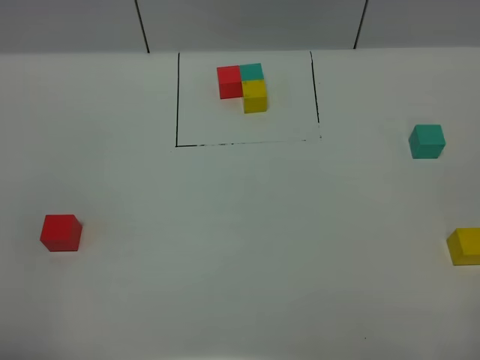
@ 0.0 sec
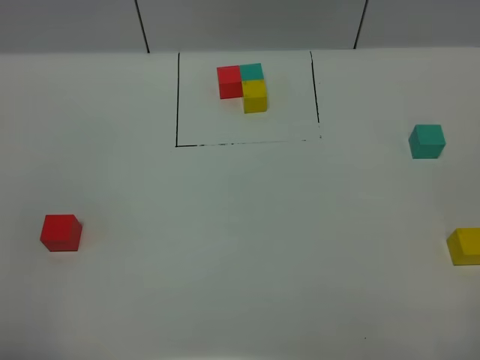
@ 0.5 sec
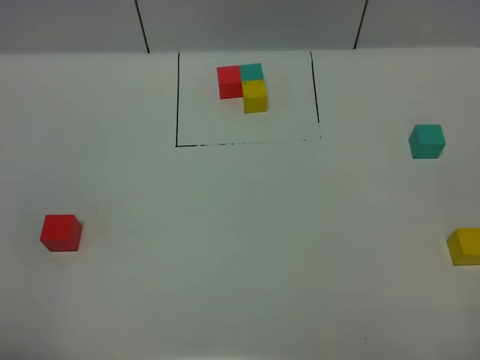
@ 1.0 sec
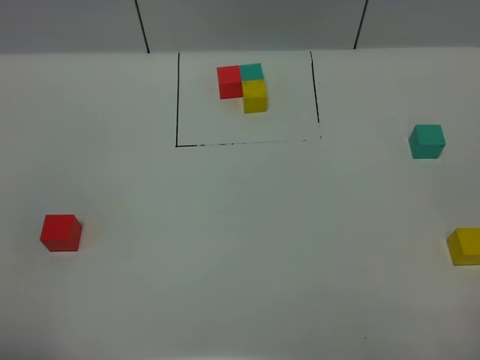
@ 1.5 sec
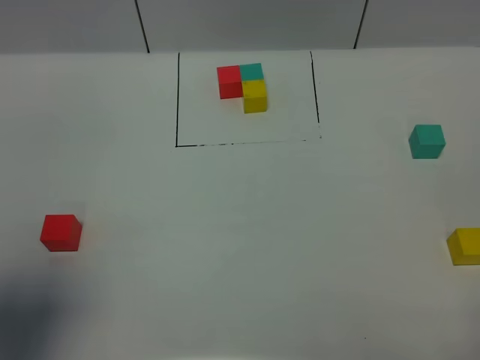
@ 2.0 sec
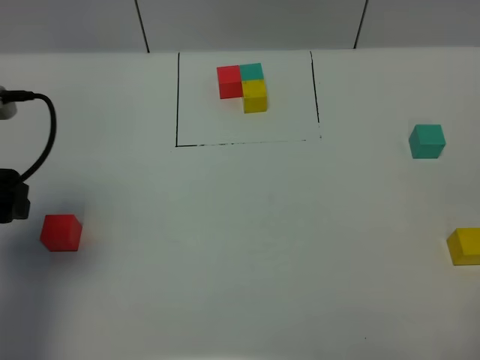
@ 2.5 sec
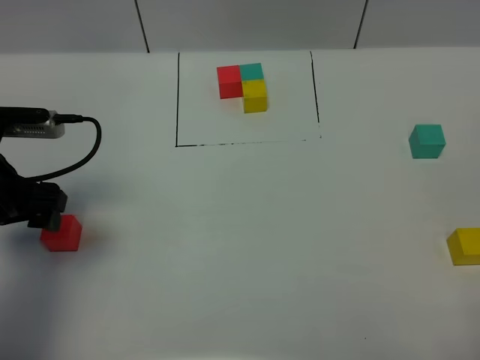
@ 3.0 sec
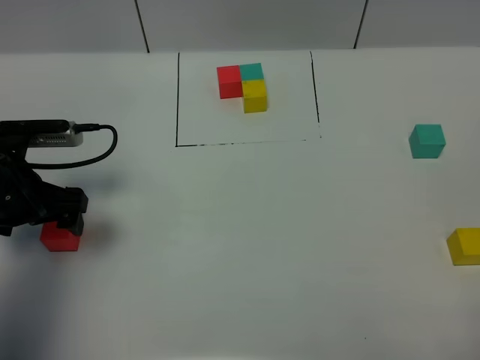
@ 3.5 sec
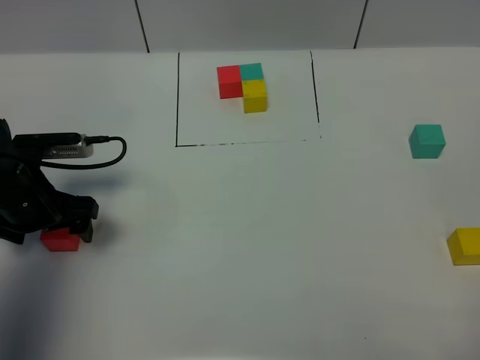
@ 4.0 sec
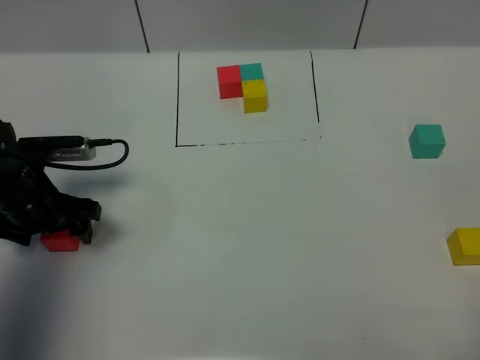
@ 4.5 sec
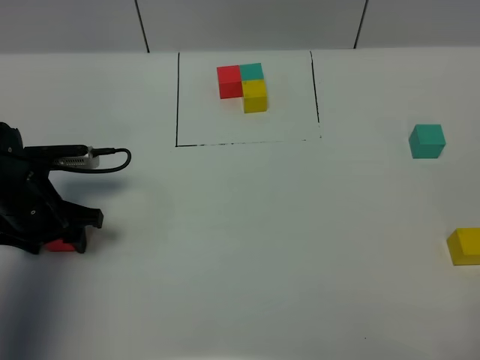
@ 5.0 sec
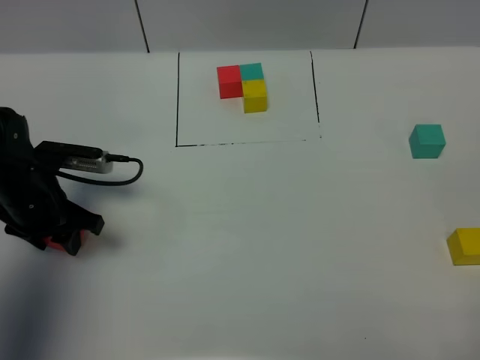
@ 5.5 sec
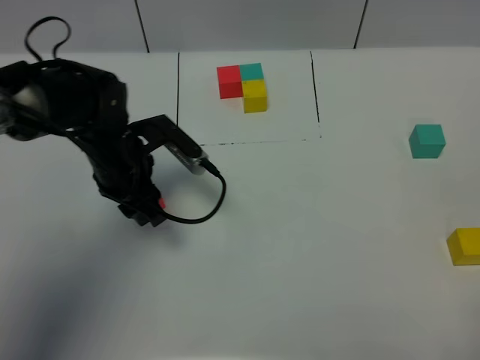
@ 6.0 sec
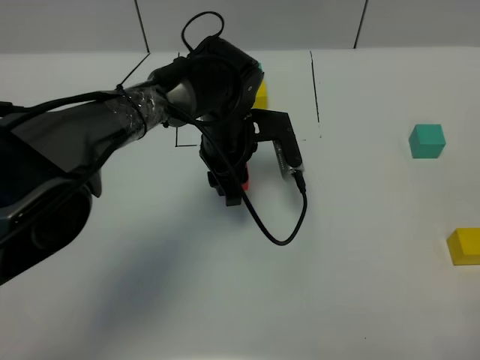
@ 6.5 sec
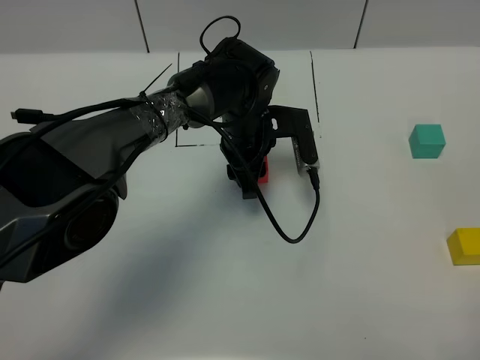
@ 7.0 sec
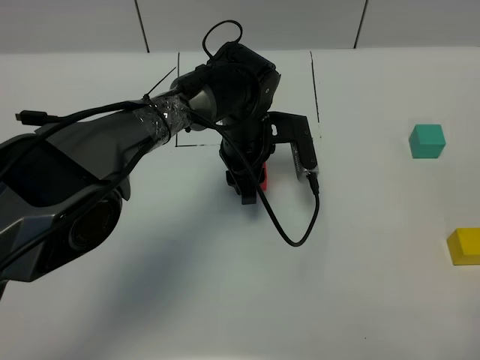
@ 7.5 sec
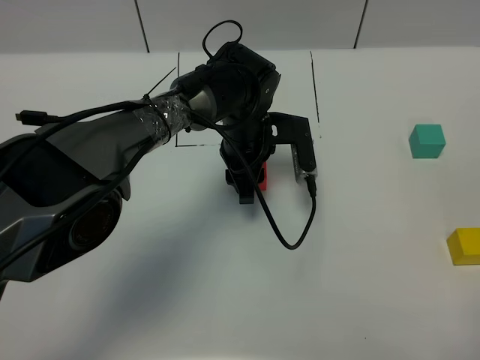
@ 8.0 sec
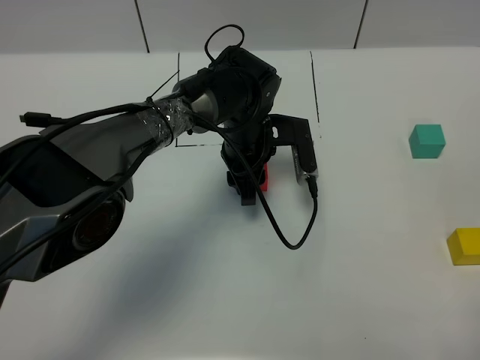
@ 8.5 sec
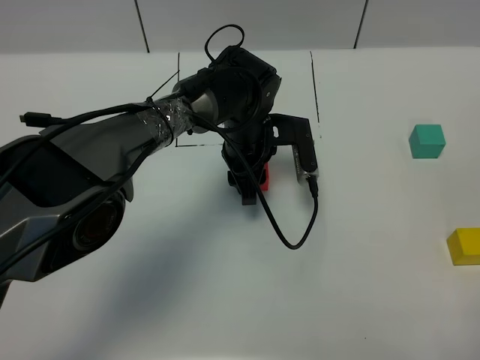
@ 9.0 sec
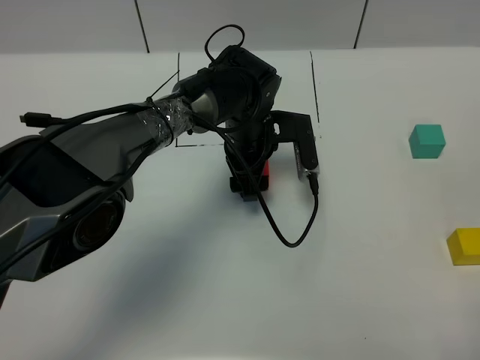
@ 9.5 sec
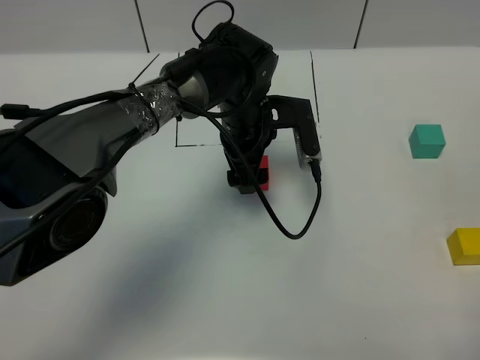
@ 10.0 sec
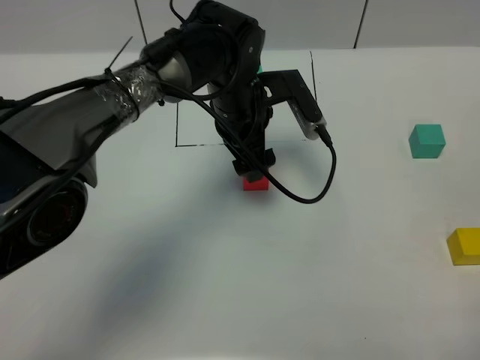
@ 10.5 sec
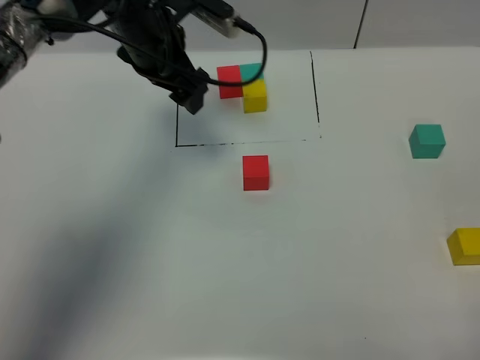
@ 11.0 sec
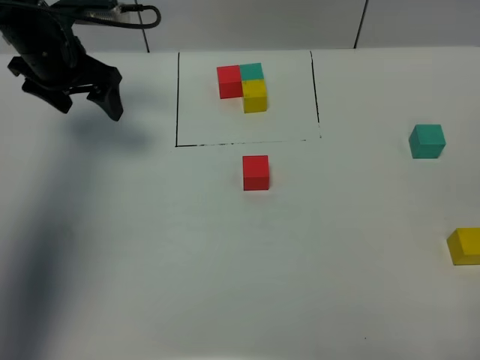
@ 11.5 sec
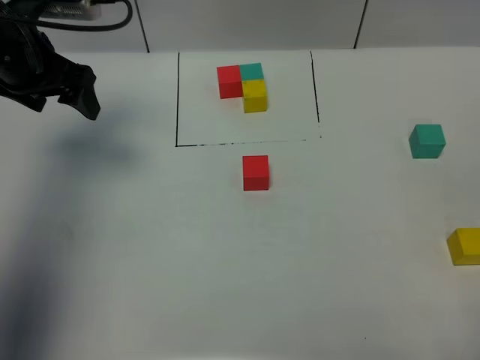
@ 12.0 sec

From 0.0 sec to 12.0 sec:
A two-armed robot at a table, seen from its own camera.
Task of the whole recording: According to the building block template in front, assemble the scattered blocks together.
Step, from 0.0 sec to 9.0 sec: Put the red build block in the center of the table.
From 0.0 sec to 2.0 sec: The left gripper moves forward and upward, some 15 cm.
From 2.0 sec to 4.0 sec: The left gripper shifts approximately 25 cm downward and forward.
From 4.0 sec to 6.0 sec: The left gripper is displaced to the right by approximately 15 cm, and closes.
From 6.0 sec to 8.0 sec: The left gripper moves to the right, about 15 cm.
From 8.0 sec to 10.0 sec: The left gripper opens its fingers.
From 10.0 sec to 12.0 sec: The left gripper moves to the left and upward, about 30 cm.

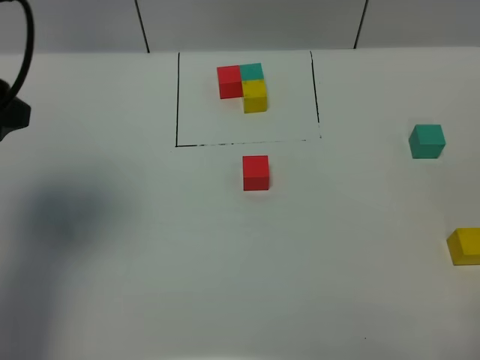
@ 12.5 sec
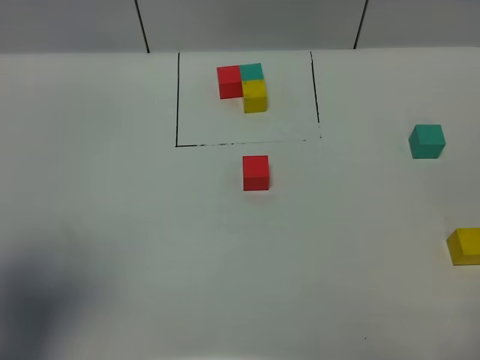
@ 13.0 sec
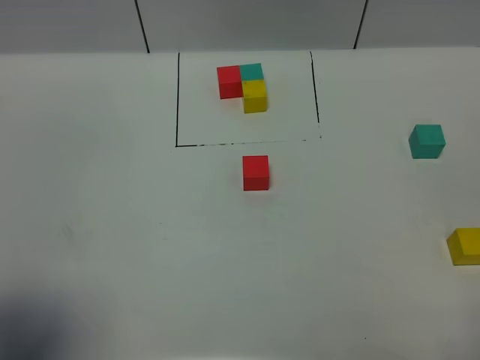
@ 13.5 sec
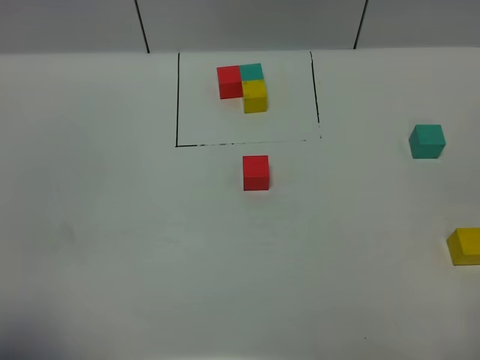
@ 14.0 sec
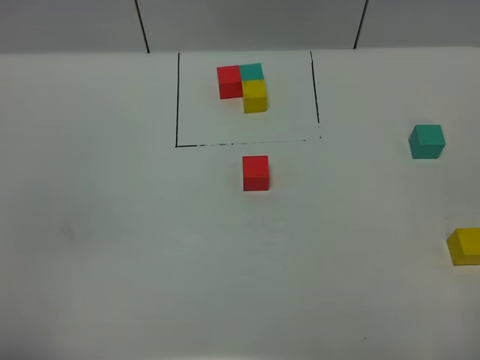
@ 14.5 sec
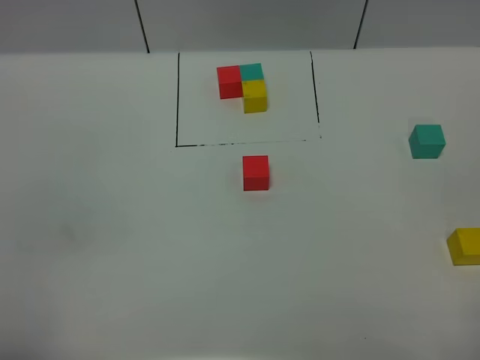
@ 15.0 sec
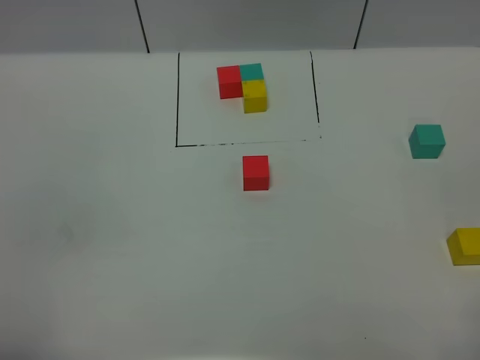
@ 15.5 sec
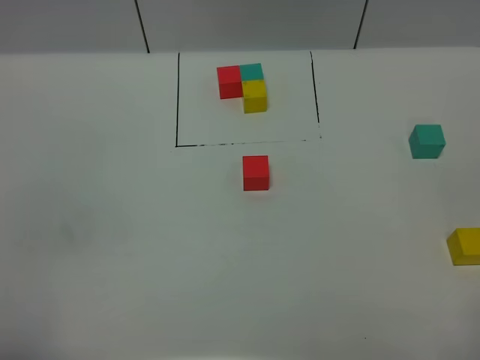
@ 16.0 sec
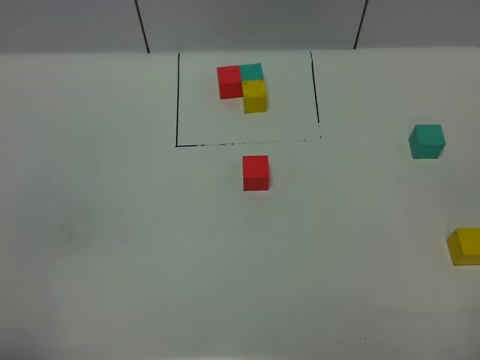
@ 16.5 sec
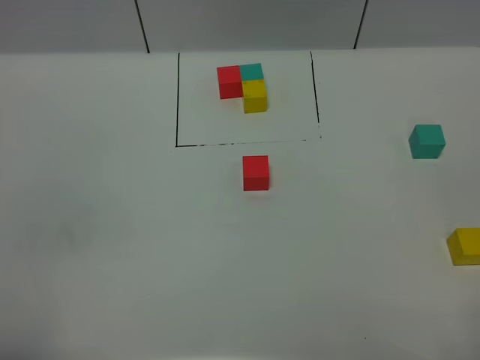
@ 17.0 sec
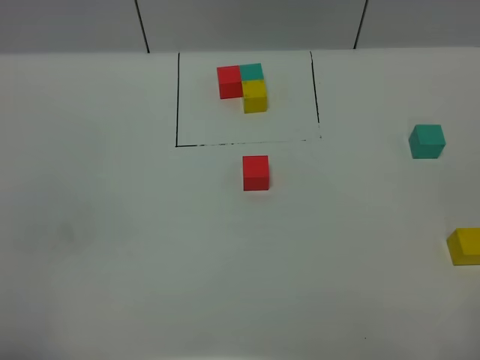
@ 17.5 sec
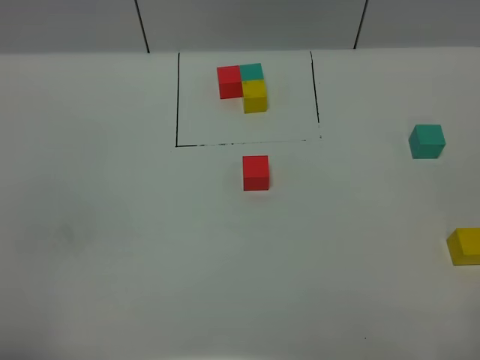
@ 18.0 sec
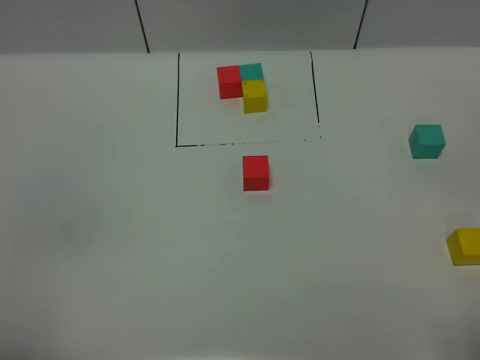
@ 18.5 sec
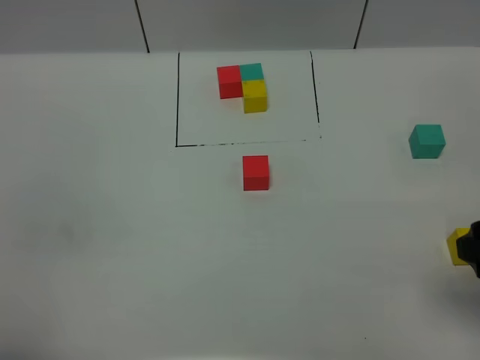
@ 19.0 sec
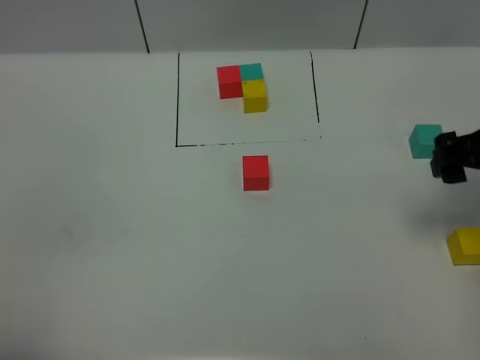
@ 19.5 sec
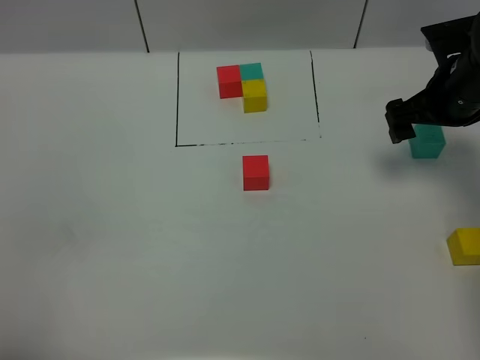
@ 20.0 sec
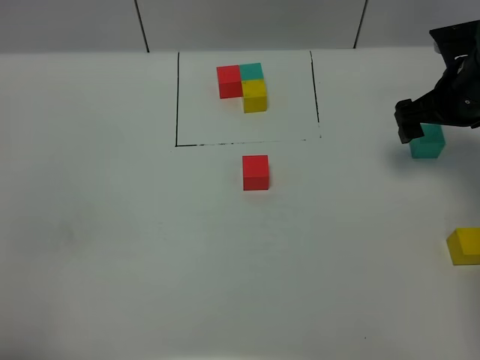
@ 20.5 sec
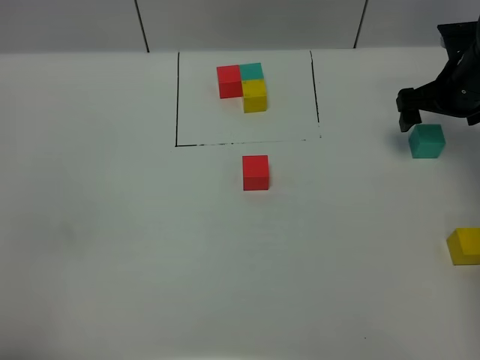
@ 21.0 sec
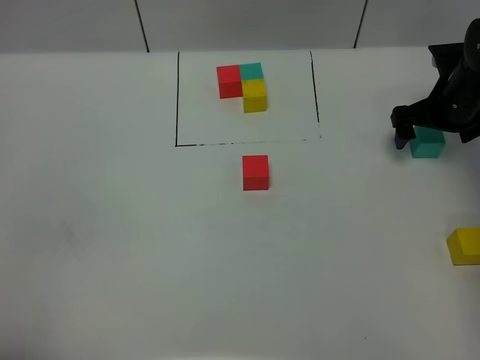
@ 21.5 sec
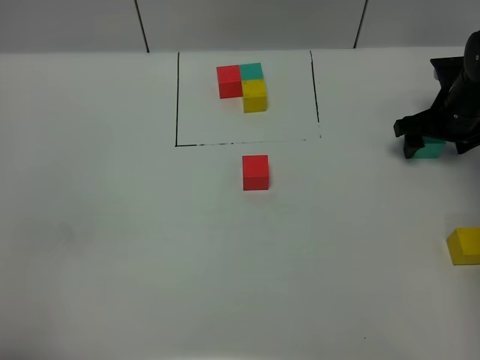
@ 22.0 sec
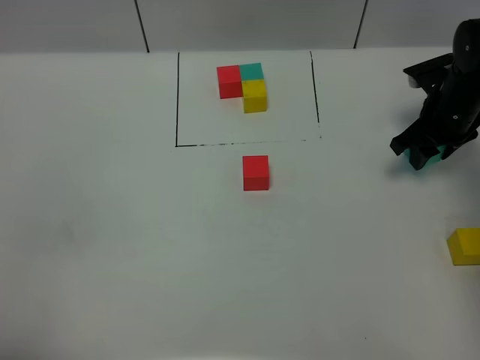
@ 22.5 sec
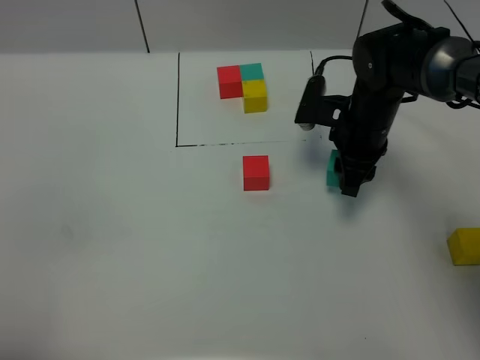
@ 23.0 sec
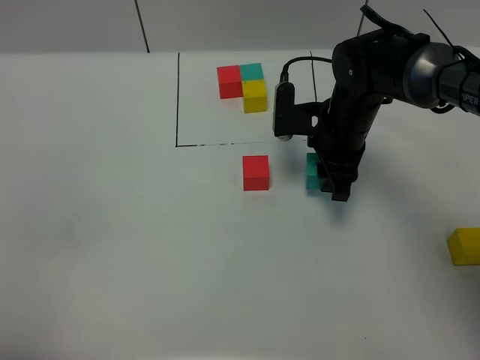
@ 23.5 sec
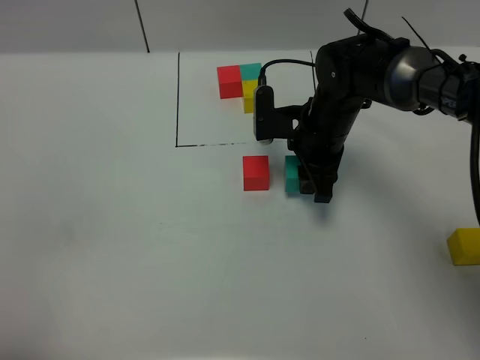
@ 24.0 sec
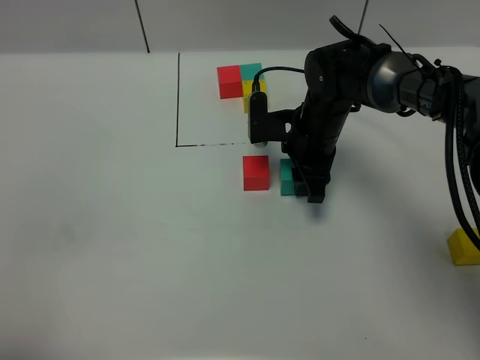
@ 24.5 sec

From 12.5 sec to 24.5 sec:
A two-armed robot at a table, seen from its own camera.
Task of the whole recording: According to the building block template in front, assemble the scattered blocks together.
From 12.5 sec to 14.5 sec: The left gripper goes about 25 cm backward.
From 14.5 sec to 16.5 sec: Neither gripper changes place.
From 18.5 sec to 20.5 sec: The right gripper goes roughly 35 cm forward.
From 20.5 sec to 22.5 sec: The right gripper goes roughly 5 cm downward, and closes its fingers.
From 22.5 sec to 24.5 sec: The right gripper shifts some 20 cm to the left.

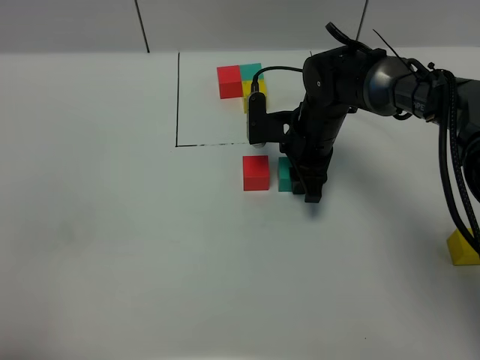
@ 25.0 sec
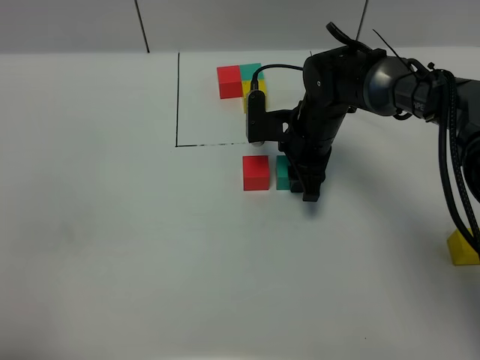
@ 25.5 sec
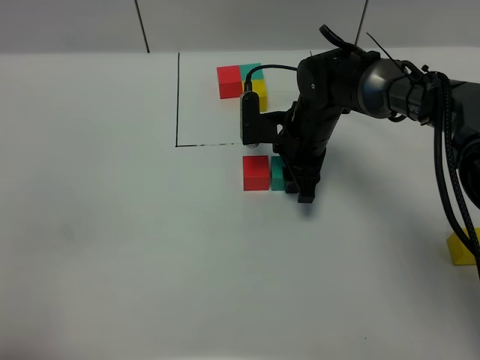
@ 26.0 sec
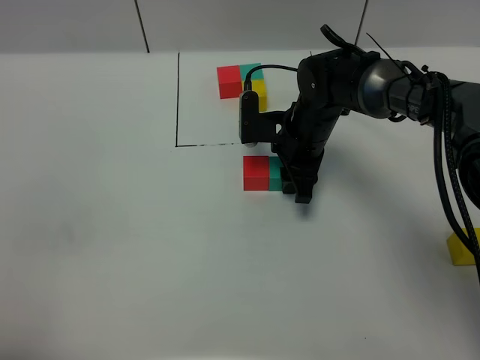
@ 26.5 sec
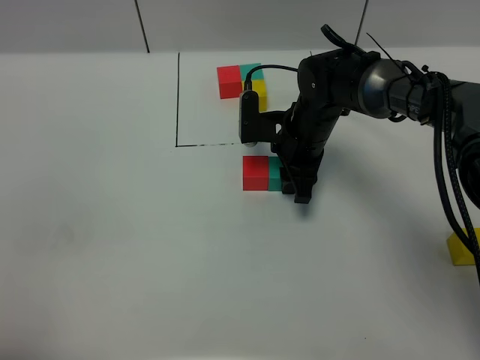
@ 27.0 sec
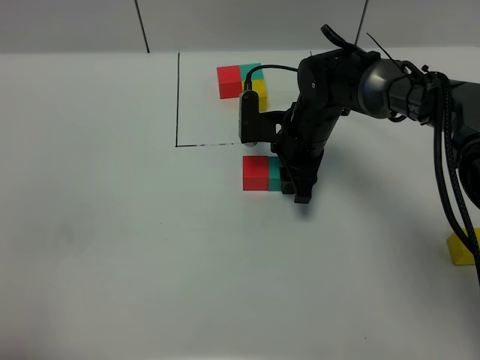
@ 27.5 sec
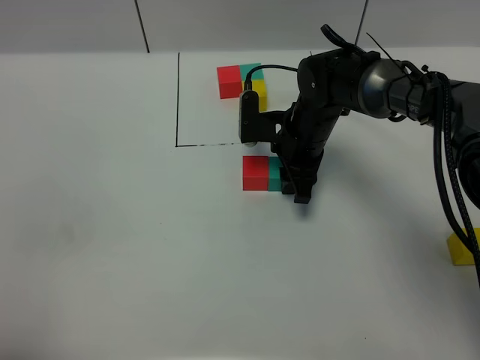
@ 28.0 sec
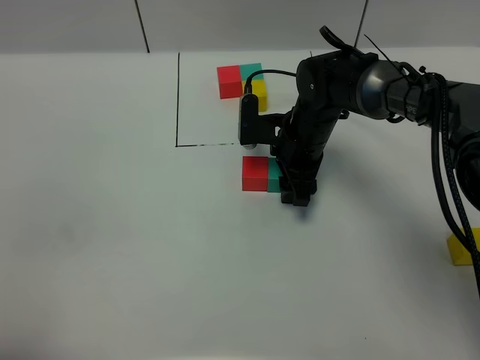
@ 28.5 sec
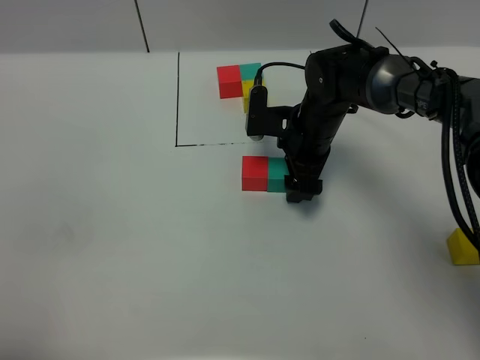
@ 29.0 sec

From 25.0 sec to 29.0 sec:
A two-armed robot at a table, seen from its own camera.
Task of the whole recording: According to the building block template in front, assemble the scattered blocks together.
Step, from 25.0 sec to 28.5 sec: Put the green build block on the right of the red build block.
From 25.0 sec to 27.0 sec: Both grippers stay put.
From 27.0 sec to 29.0 sec: The right gripper opens up.
